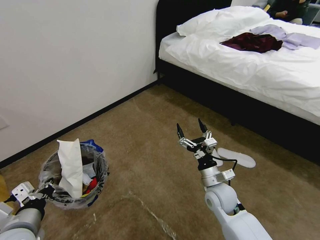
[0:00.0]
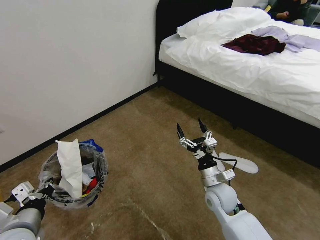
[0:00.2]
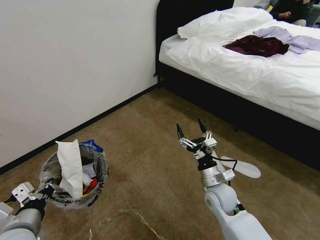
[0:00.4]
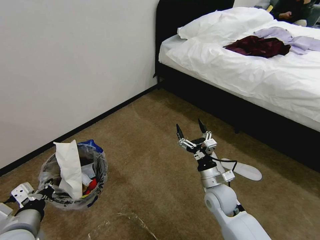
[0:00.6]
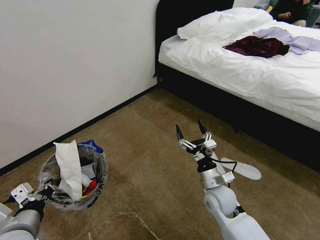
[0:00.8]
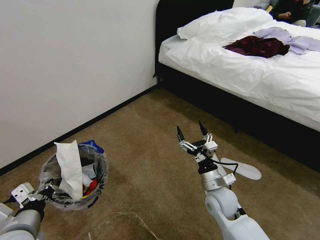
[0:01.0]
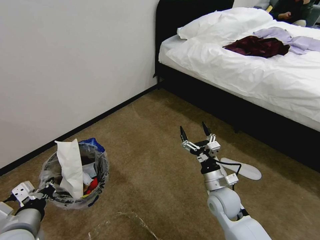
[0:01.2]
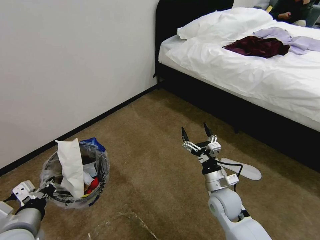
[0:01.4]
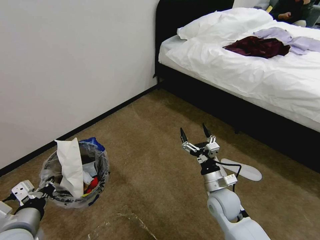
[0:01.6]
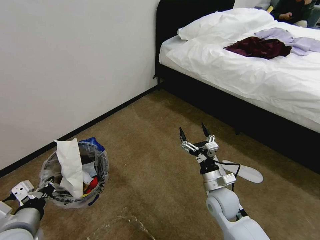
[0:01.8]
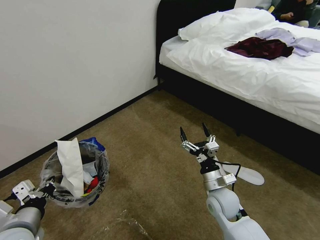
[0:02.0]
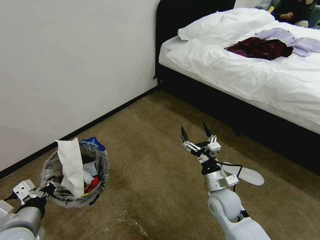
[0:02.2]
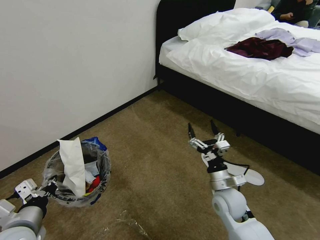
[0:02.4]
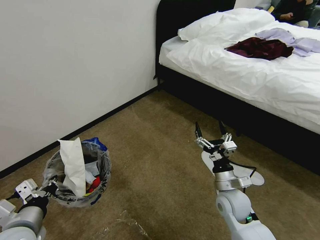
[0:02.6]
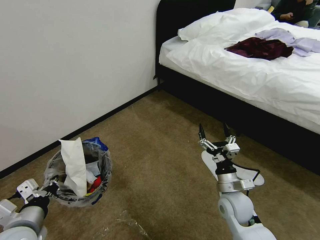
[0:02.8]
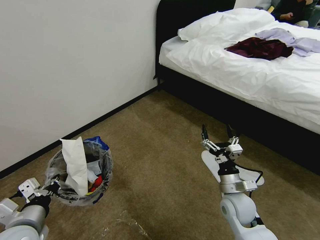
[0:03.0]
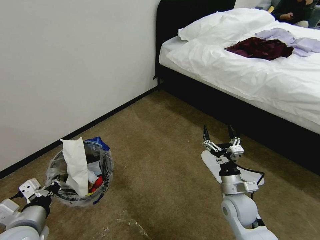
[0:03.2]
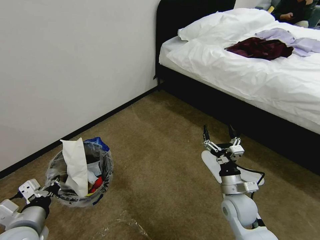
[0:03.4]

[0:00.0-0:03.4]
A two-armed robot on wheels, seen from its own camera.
Task of the whole recording: Pick up the trash bin and place the garbage on the floor into it.
0:00.0 to 0:03.4: There are only small adjustments of the grippers.
